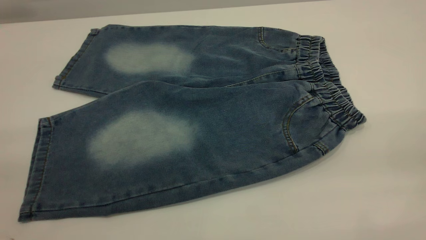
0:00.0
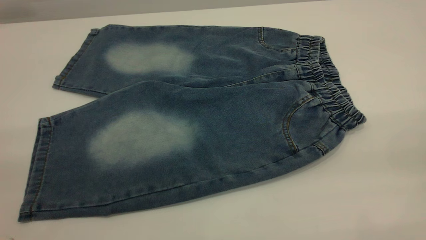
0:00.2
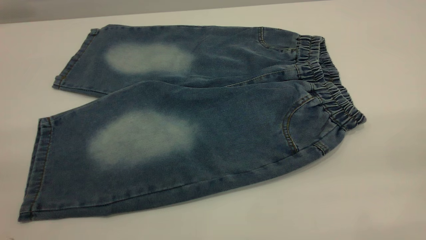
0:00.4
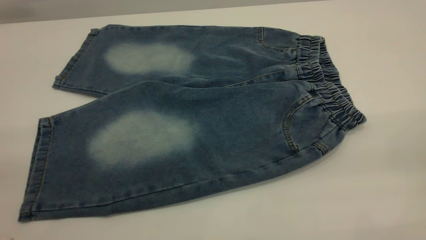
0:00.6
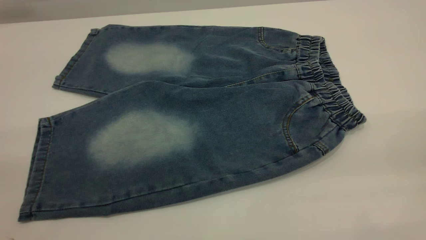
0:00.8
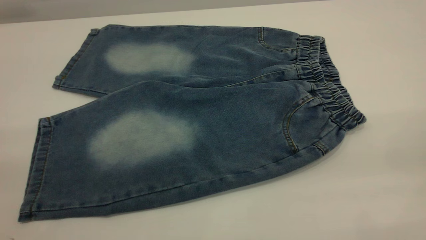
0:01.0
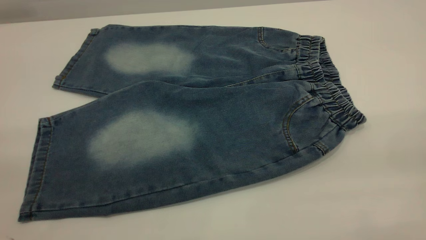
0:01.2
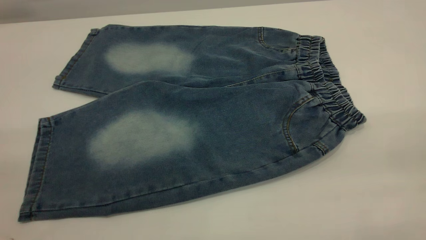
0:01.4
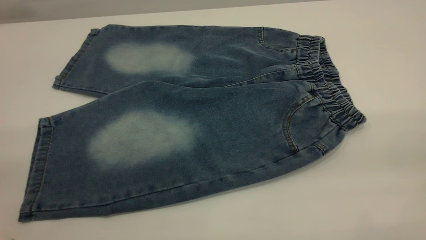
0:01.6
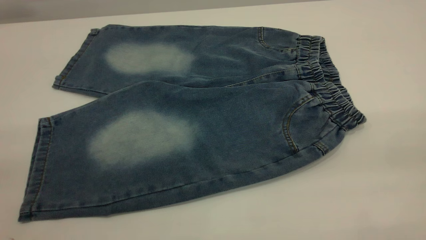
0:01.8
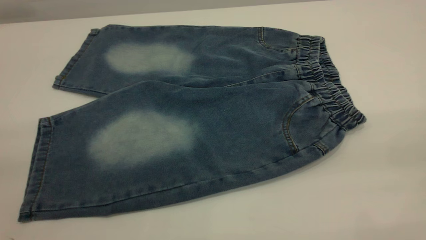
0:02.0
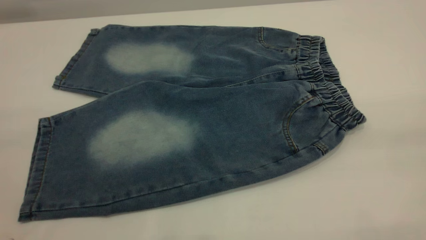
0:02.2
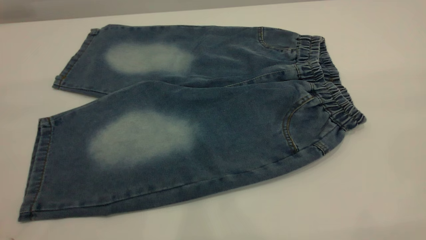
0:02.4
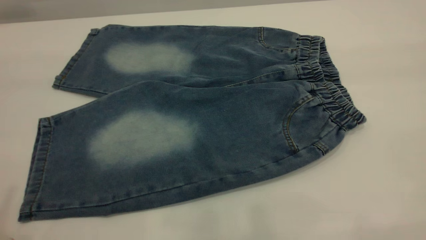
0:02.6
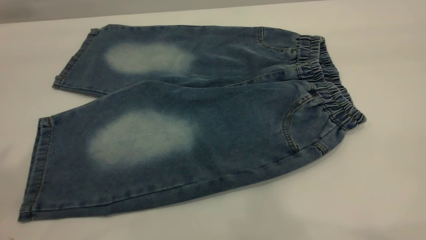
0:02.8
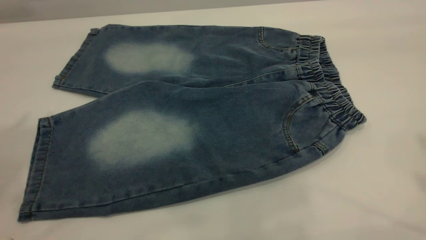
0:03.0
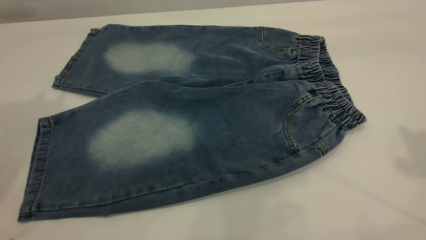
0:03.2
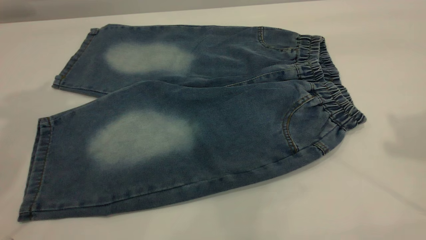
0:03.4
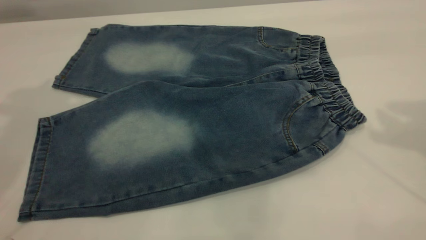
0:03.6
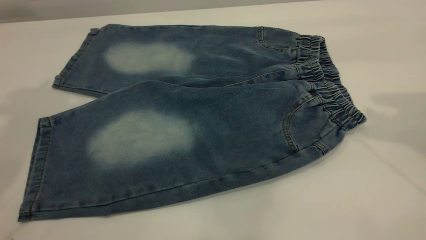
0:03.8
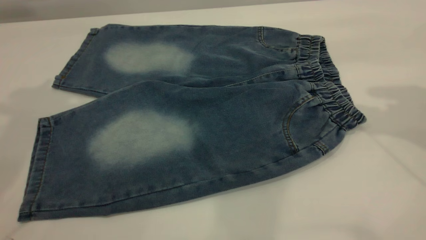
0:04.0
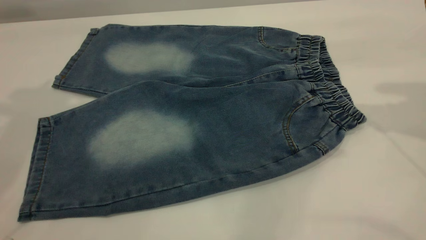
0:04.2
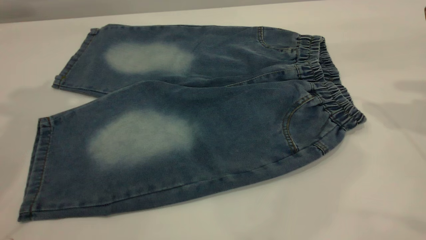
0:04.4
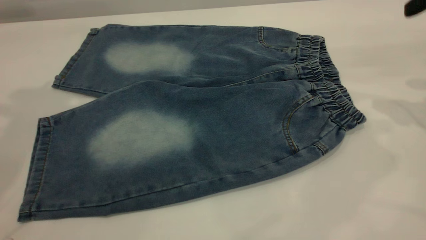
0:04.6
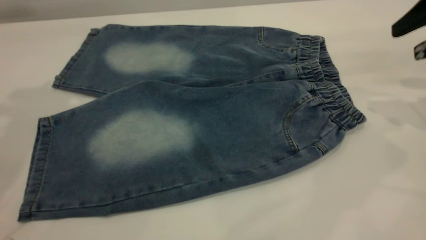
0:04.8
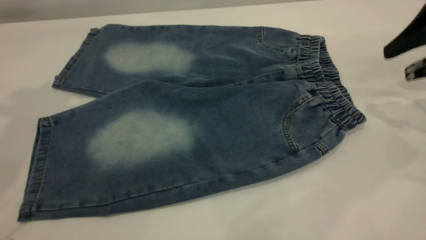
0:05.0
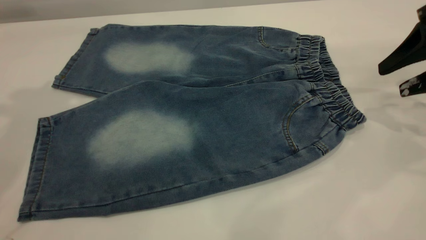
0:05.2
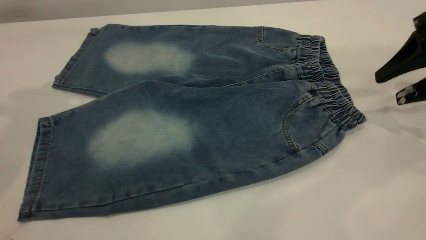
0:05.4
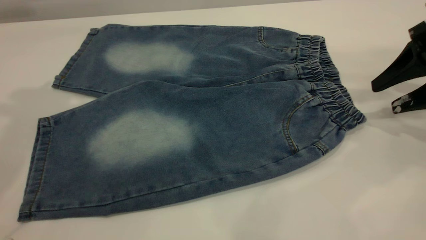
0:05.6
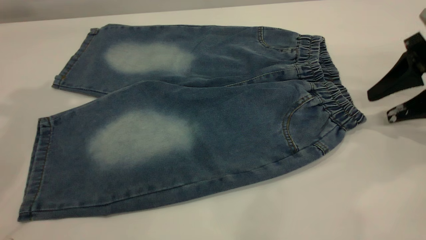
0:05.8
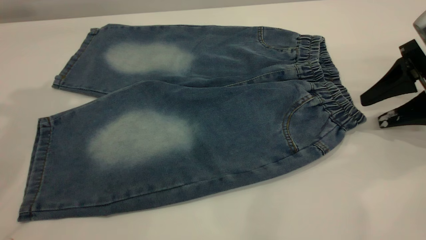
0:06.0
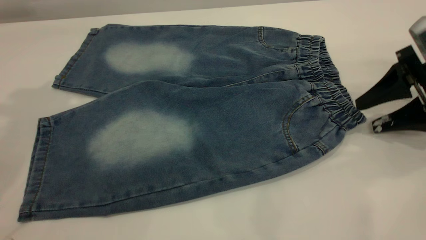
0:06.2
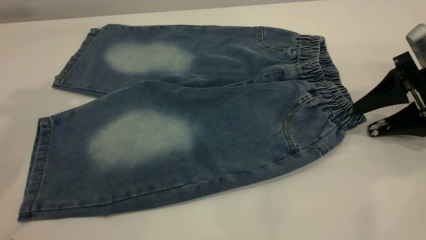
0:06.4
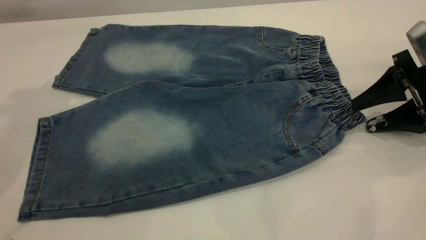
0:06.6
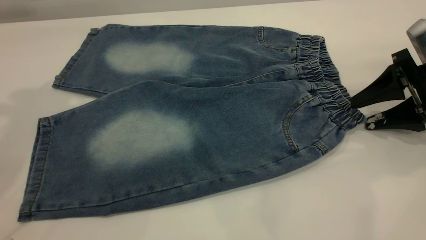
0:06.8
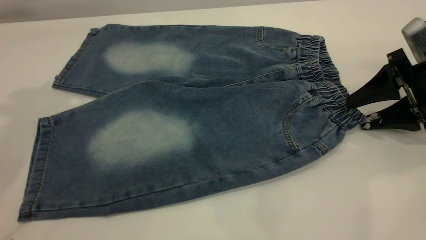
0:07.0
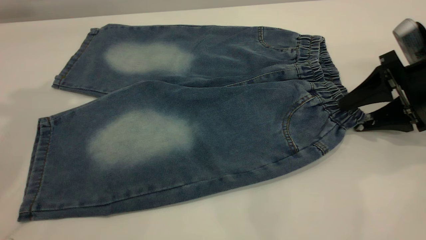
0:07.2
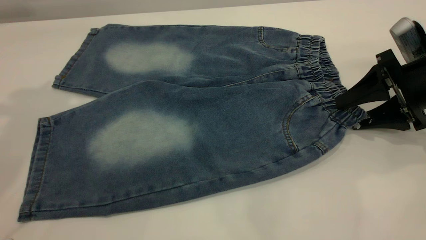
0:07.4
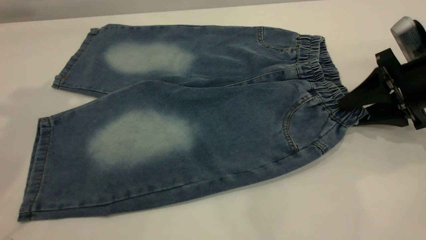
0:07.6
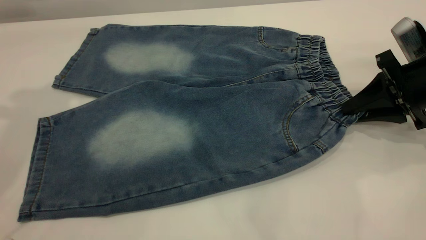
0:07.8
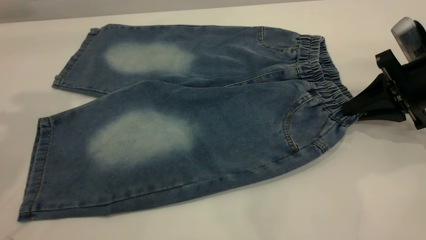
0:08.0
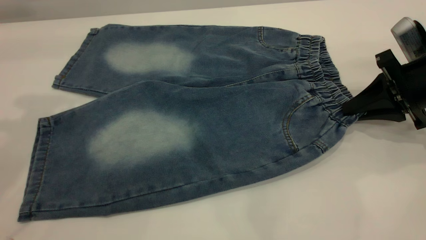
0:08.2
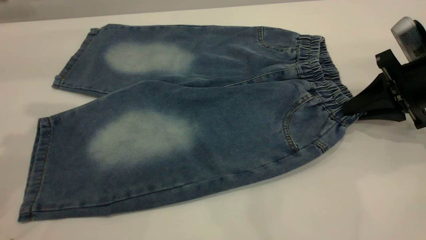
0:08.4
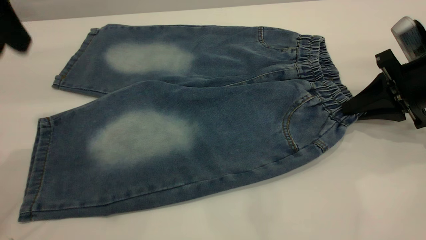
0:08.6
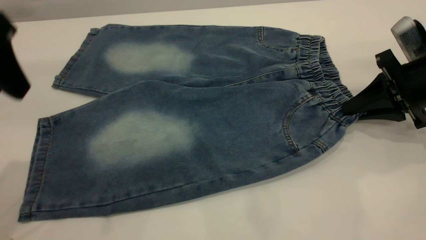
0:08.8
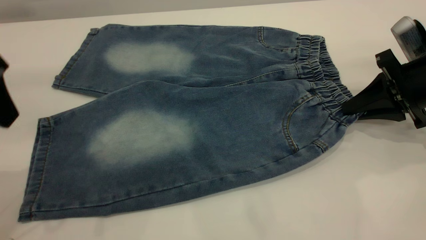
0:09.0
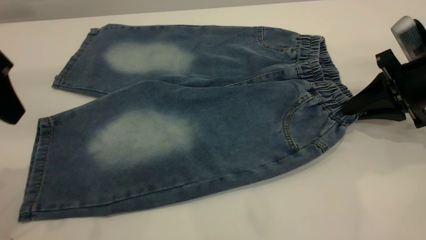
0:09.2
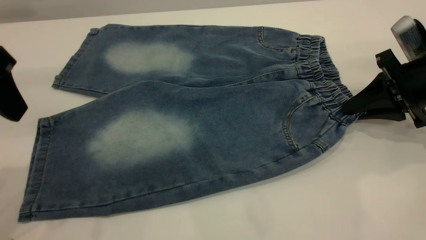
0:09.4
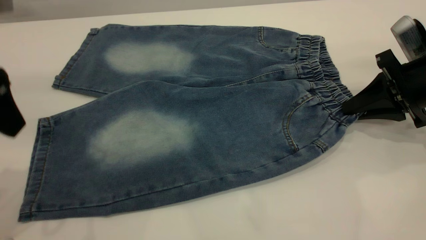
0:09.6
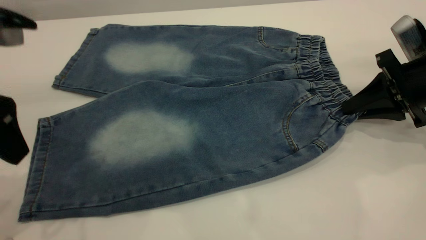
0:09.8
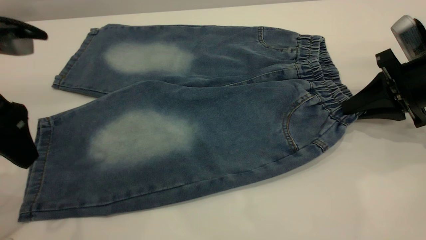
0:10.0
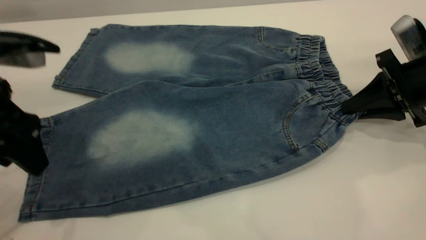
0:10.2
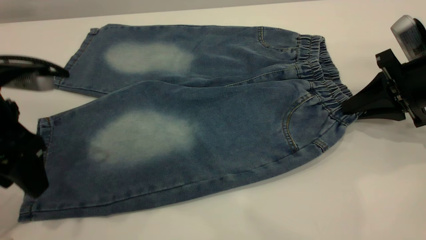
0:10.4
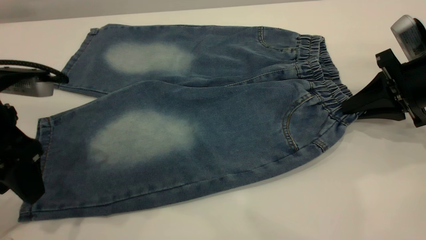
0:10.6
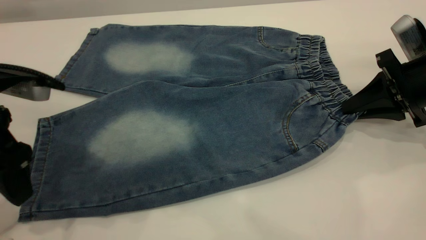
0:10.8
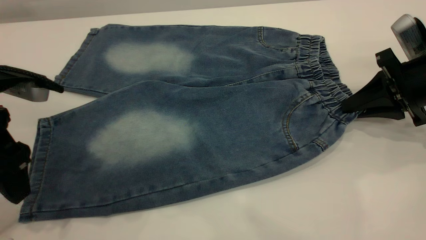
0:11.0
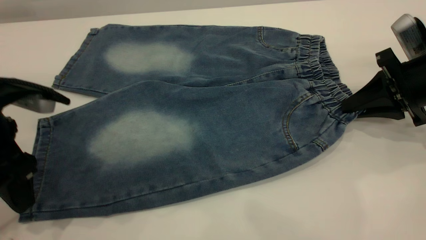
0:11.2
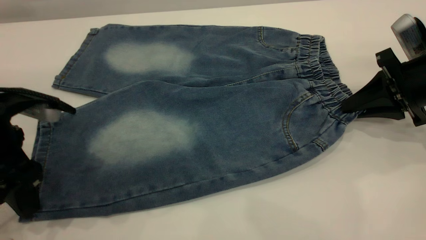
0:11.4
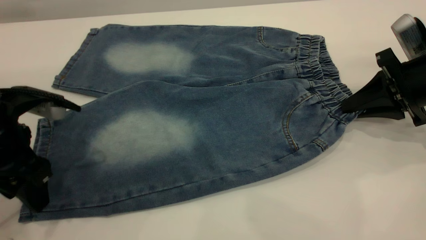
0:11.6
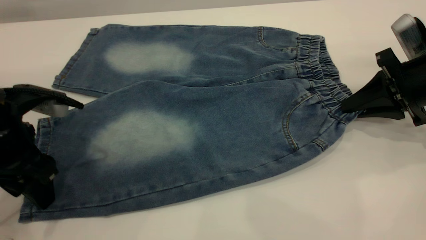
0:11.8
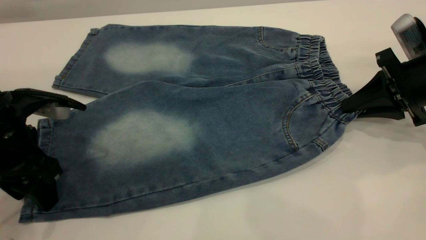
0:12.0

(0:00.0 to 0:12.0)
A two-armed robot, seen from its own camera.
0:00.0 - 0:01.6: The two grippers keep their place.
0:03.0 - 0:04.4: The right gripper is displaced downward and forward by approximately 20 cm.
0:04.4 - 0:06.0: The right gripper shifts approximately 15 cm downward.
0:06.0 - 0:07.6: The grippers make only small movements.
0:07.6 - 0:09.0: The right gripper closes up. The left gripper is displaced downward and backward by about 15 cm.
0:09.0 - 0:10.4: The left gripper moves downward, roughly 10 cm.
0:10.4 - 0:12.0: The left gripper heads downward, covering approximately 5 cm.

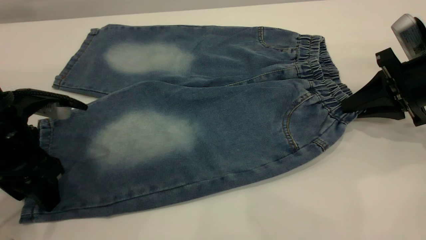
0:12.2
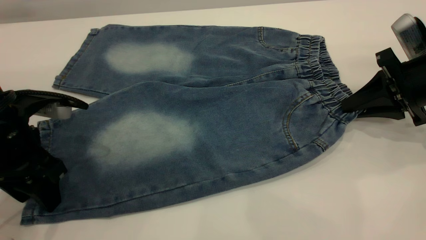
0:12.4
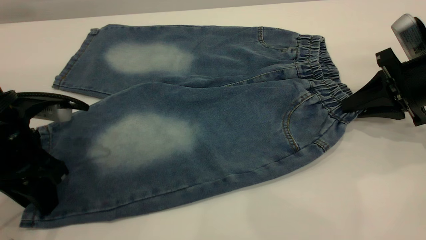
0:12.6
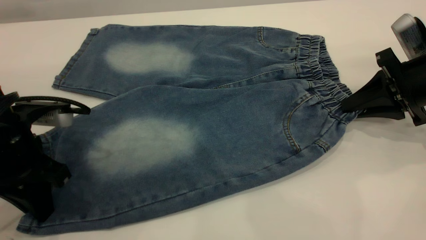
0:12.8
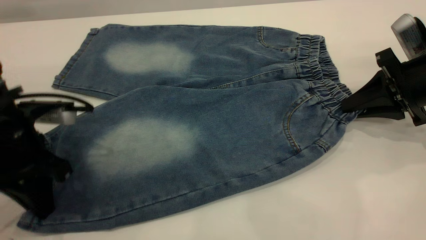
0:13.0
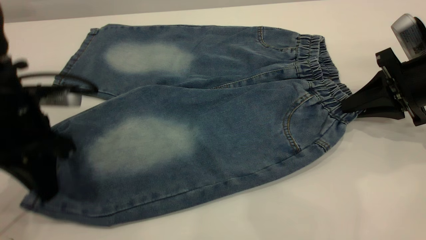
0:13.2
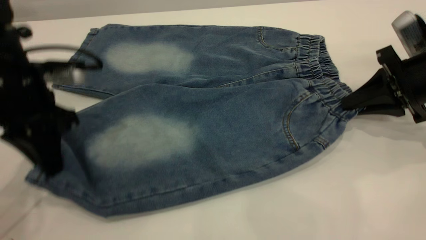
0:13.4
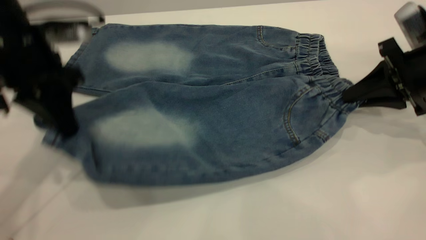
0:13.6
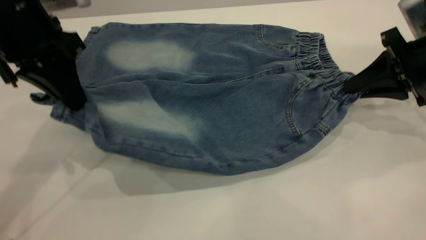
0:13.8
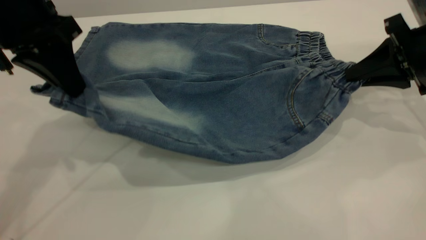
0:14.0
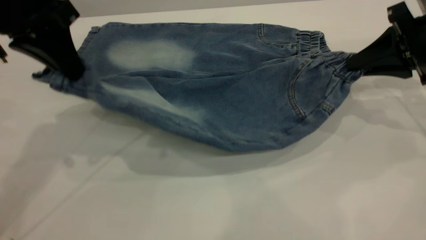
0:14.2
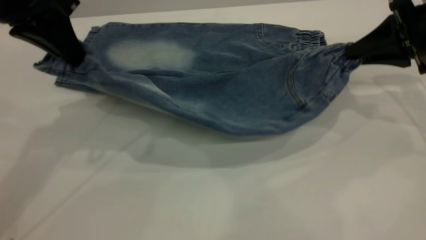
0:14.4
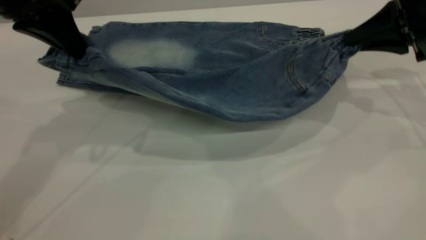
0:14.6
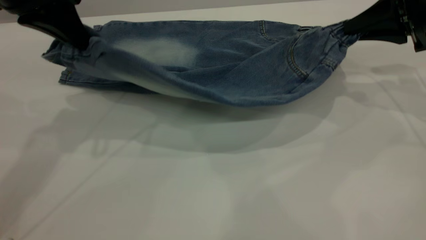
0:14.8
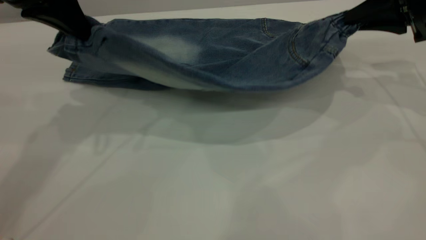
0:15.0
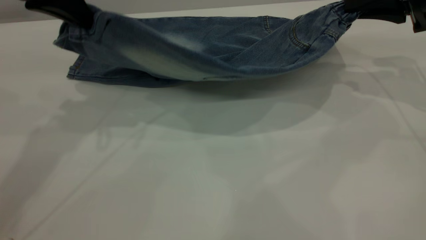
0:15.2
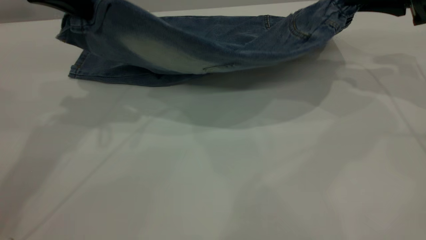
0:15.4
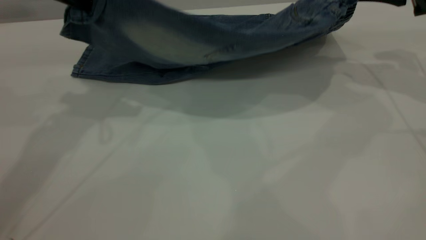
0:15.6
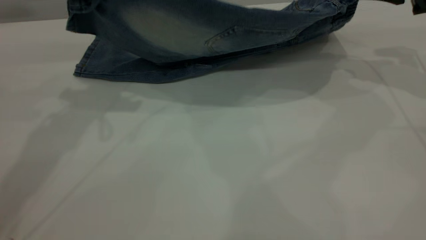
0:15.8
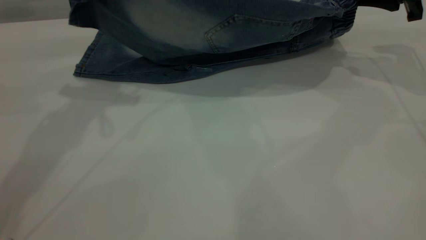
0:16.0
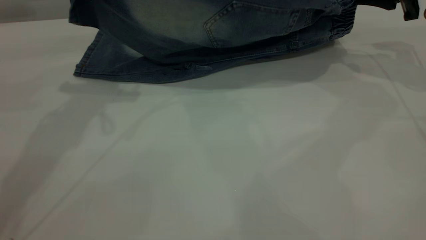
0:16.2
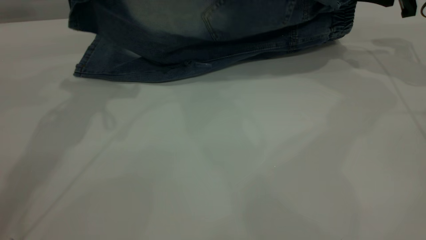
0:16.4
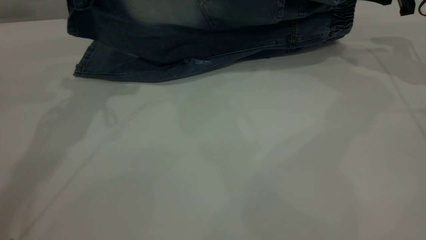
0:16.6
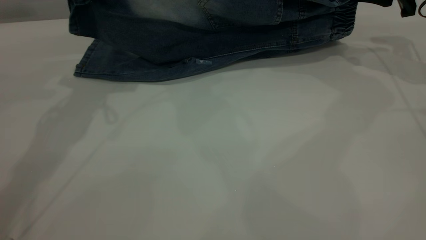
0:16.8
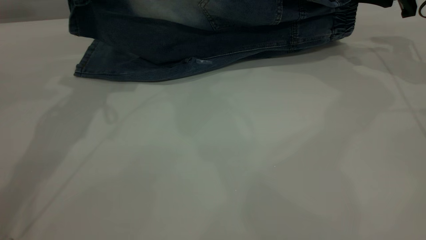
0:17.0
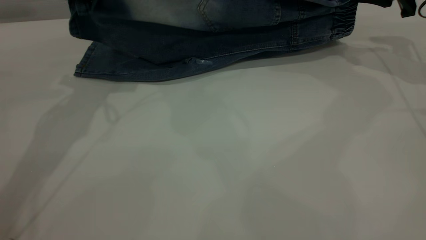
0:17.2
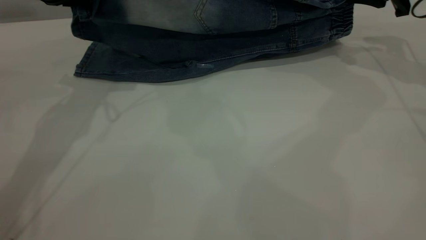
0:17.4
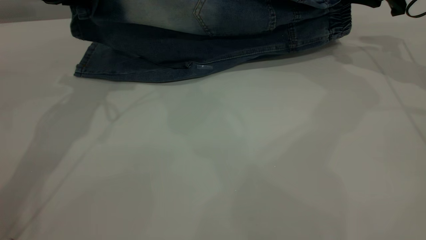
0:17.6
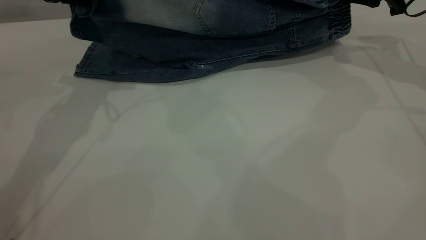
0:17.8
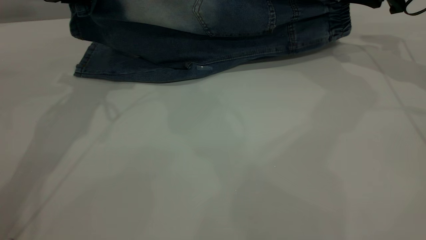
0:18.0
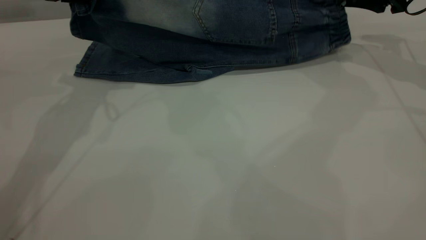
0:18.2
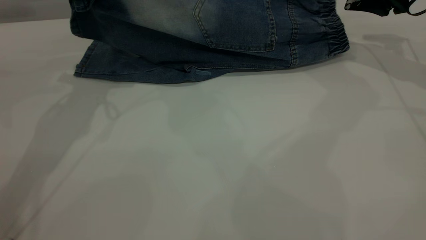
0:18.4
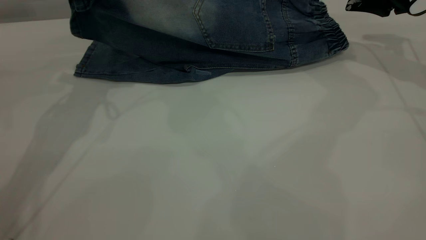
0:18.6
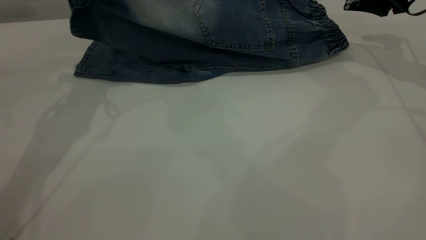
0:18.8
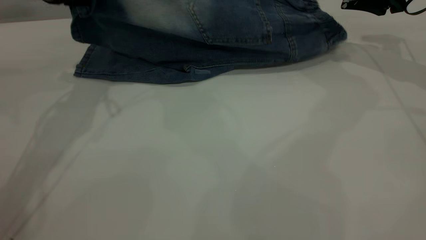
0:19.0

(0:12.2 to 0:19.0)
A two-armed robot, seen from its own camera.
0:12.2 - 0:13.6: The left gripper is displaced upward and forward by some 10 cm, and closes.
0:13.6 - 0:15.0: The left gripper shifts some 5 cm upward; the right gripper moves upward and forward, some 10 cm.
0:15.0 - 0:16.2: The right gripper goes about 5 cm forward.
0:16.2 - 0:17.6: The left gripper moves downward, approximately 5 cm.
0:17.6 - 0:19.0: The right gripper opens its fingers.
